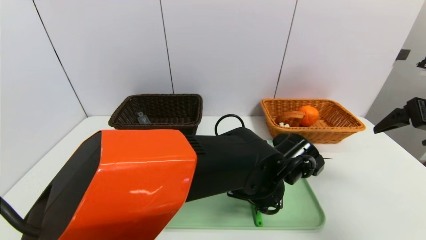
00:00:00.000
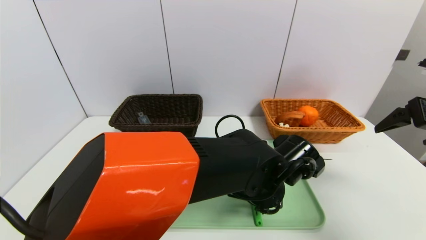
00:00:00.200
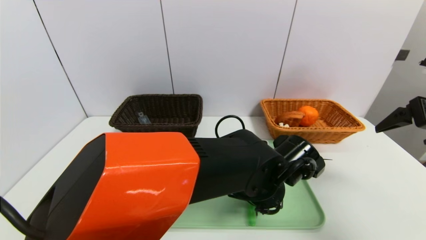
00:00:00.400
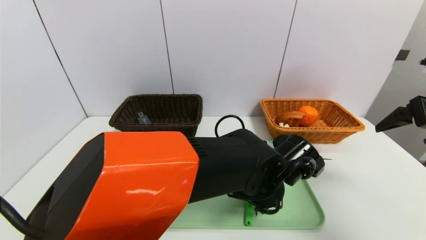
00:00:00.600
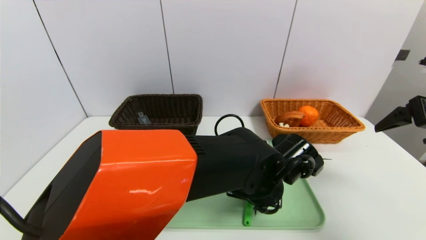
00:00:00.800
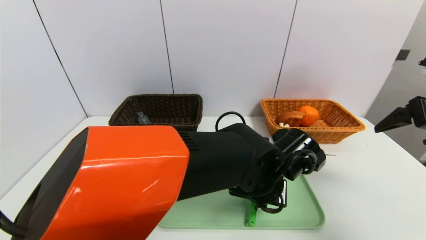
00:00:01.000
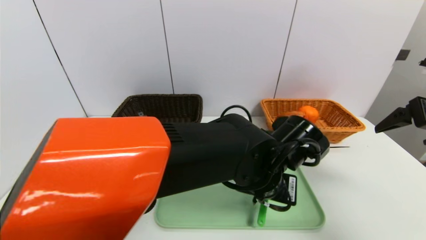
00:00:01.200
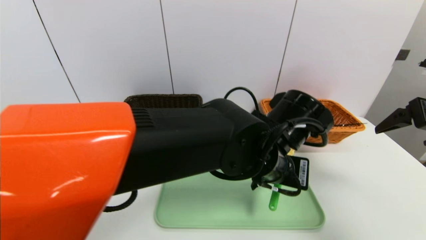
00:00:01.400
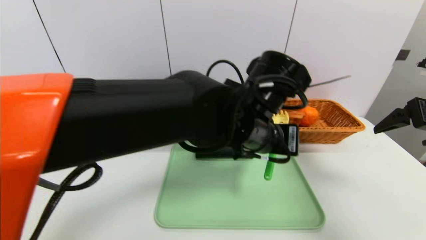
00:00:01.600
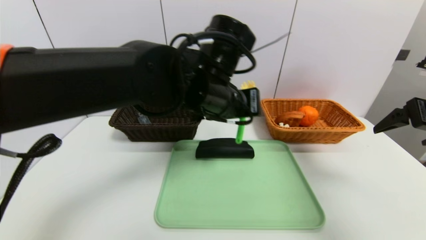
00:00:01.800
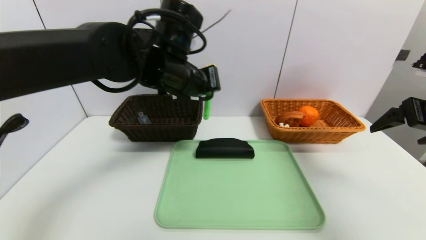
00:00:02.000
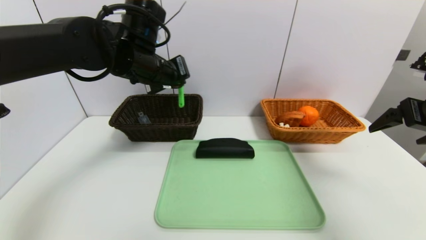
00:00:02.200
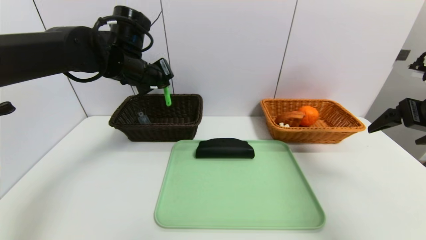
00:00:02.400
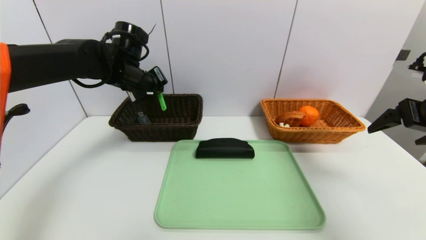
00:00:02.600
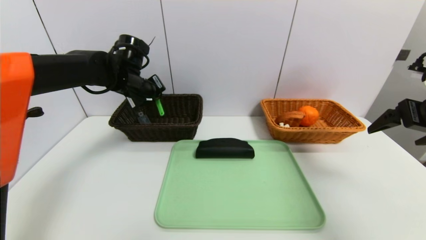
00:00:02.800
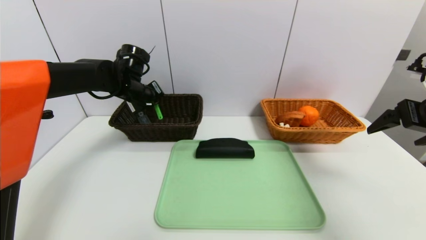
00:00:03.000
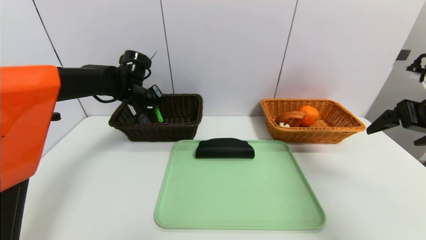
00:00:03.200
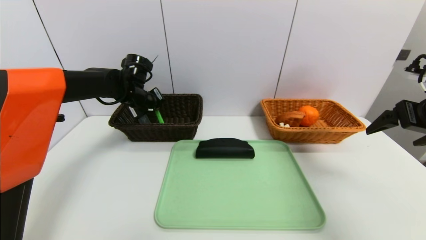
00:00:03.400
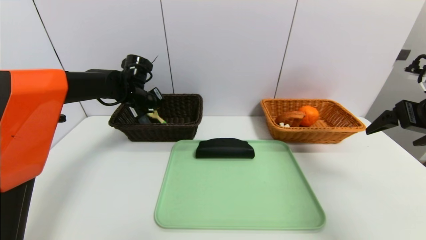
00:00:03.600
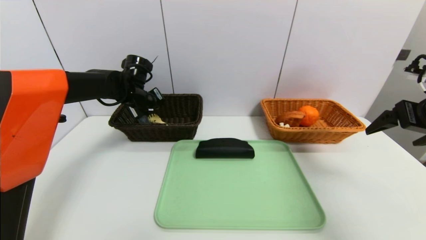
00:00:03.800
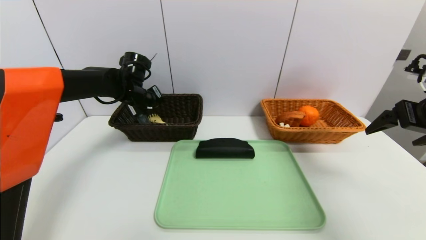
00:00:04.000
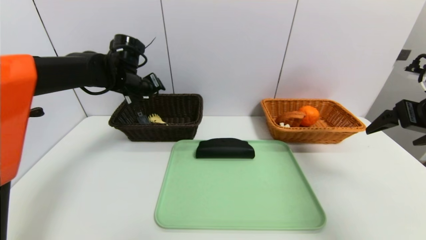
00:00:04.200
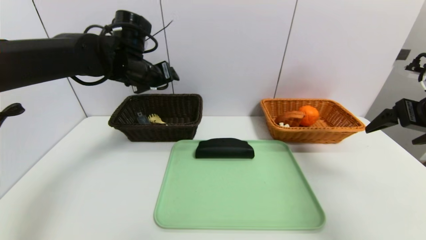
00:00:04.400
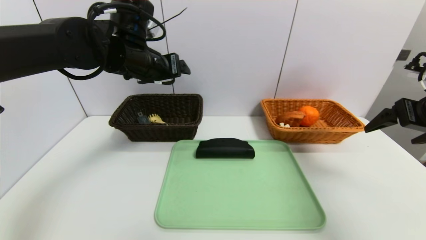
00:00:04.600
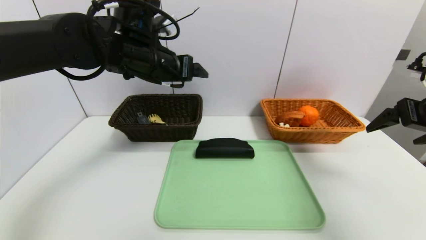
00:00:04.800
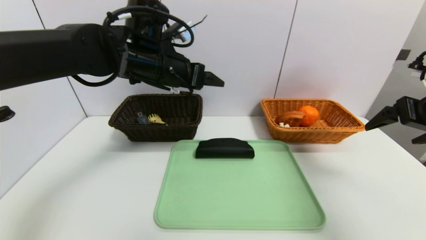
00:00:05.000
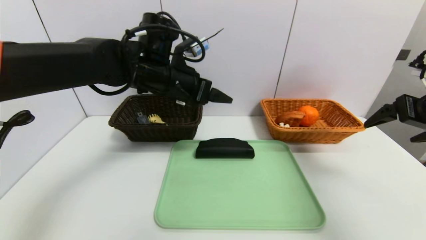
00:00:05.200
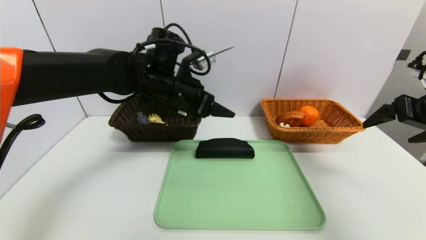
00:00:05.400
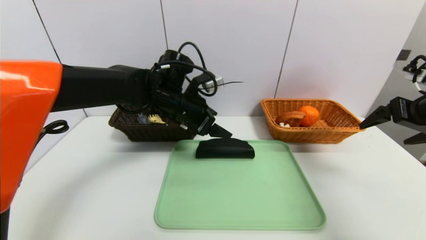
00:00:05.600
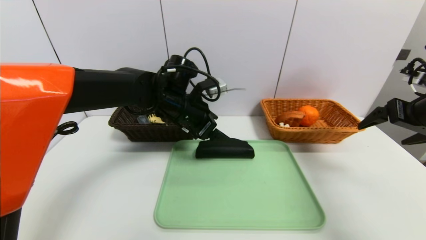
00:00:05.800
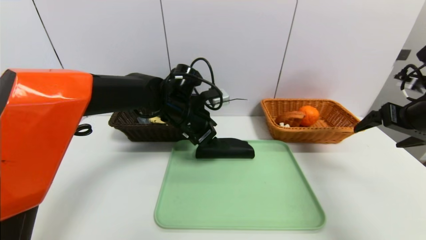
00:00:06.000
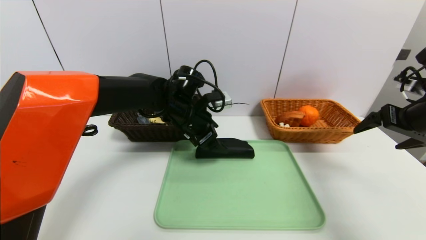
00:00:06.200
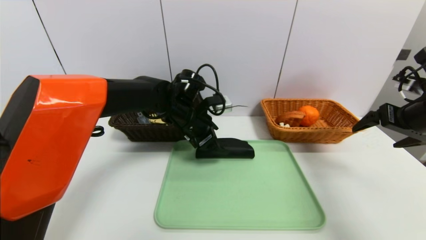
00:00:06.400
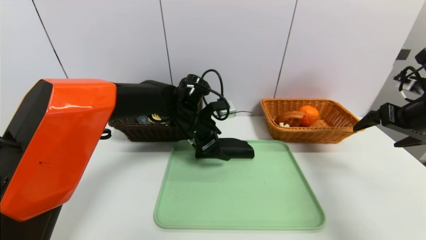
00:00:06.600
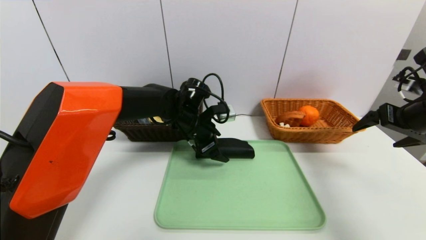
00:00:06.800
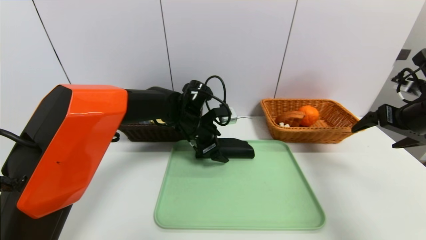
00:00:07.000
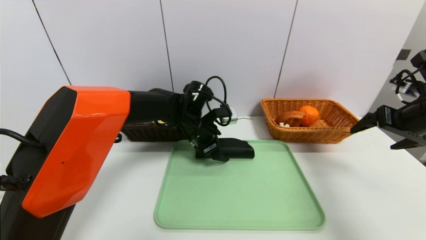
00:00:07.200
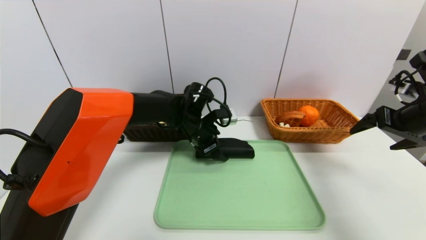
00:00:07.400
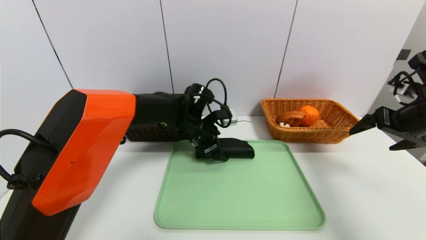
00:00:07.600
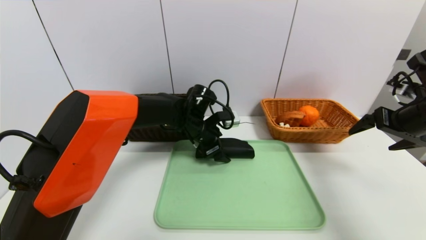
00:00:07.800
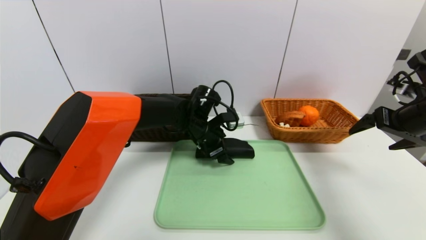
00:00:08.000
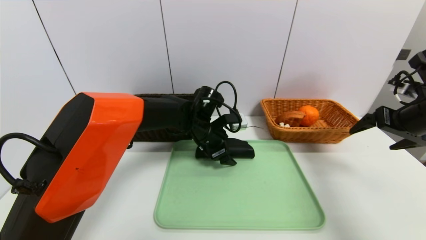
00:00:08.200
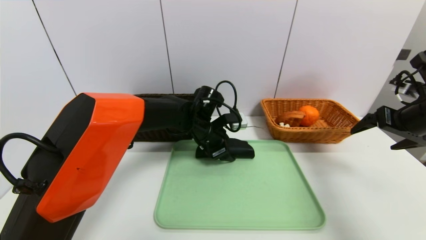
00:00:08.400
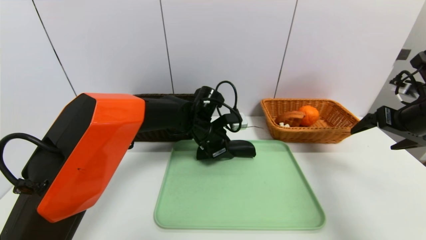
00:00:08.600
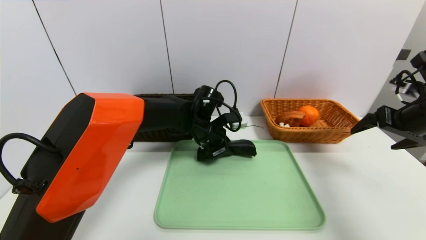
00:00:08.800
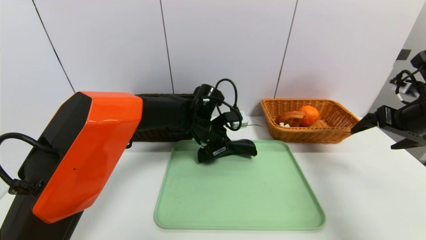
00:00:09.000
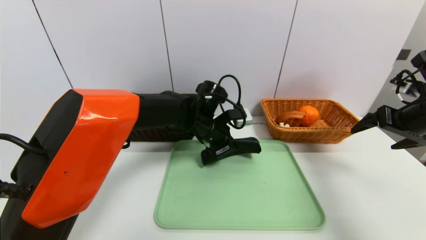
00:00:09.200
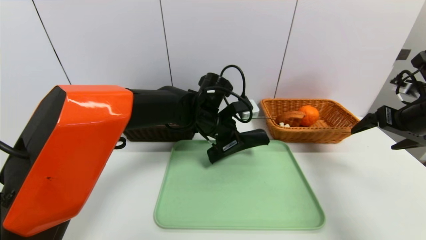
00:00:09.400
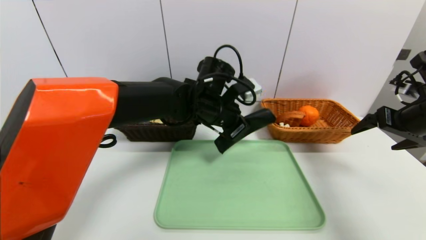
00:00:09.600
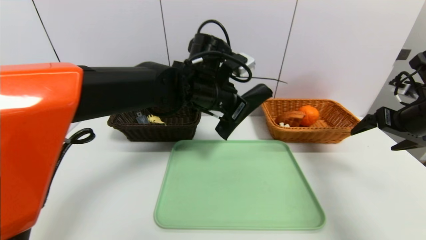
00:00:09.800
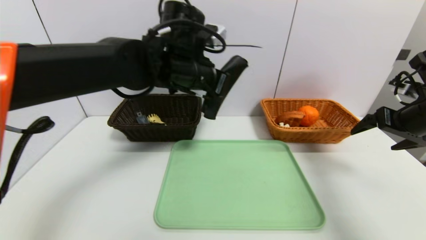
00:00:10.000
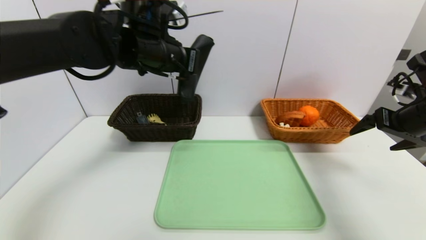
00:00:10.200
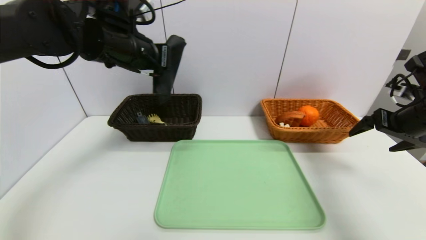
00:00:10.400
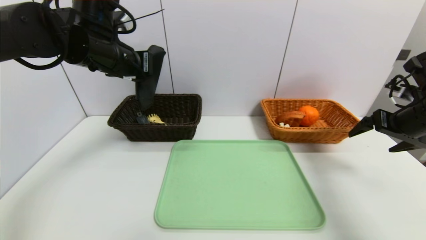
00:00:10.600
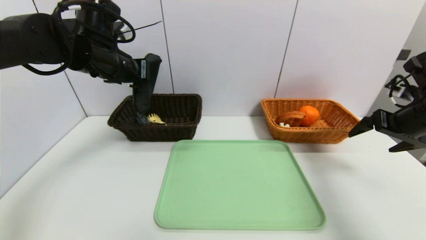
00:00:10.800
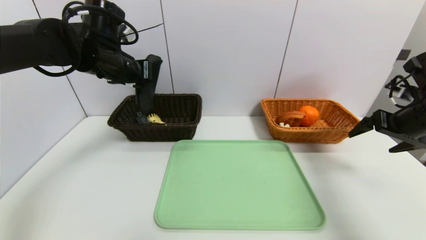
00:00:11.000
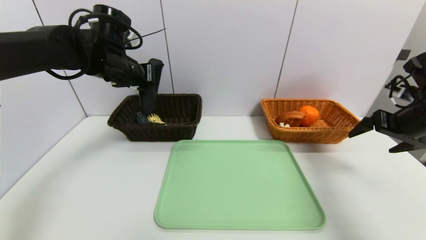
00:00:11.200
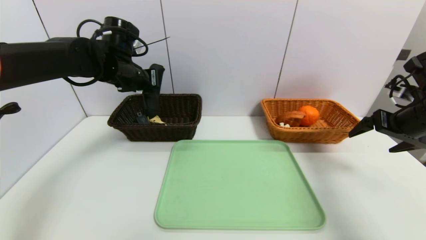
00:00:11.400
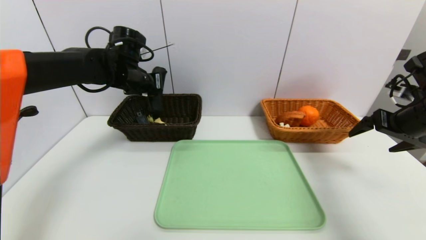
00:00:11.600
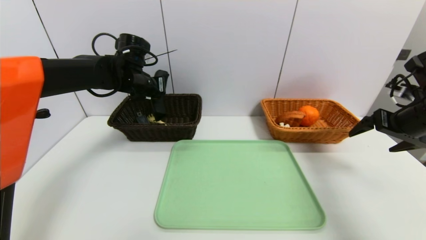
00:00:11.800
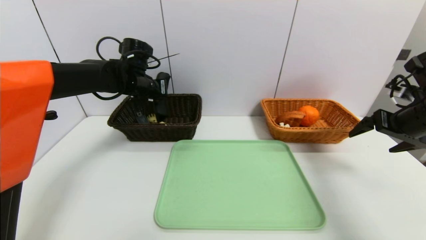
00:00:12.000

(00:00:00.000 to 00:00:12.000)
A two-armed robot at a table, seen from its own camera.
Task of the whole recording: place the food in the right basket with the right gripper, and place the non food items in the left basket with the left gripper.
Step, 00:00:00.000 - 00:00:04.000: Grasp the back scratcher and put it in the left basket.
00:00:00.000 - 00:00:01.600: The left gripper heads upward, covering roughly 10 cm, and closes up.
00:00:01.600 - 00:00:03.000: The left gripper is displaced to the left and forward by some 30 cm.
00:00:03.000 - 00:00:04.400: The left gripper moves upward, roughly 5 cm, and opens.
00:00:04.400 - 00:00:06.000: The left gripper moves to the right and downward, some 15 cm.
00:00:06.000 - 00:00:07.600: The left gripper goes some 5 cm downward.
00:00:07.600 - 00:00:09.000: The left gripper closes its fingers.
00:00:09.000 - 00:00:10.400: The left gripper moves upward and to the left, roughly 25 cm.
00:00:10.400 - 00:00:12.000: The left gripper goes about 15 cm forward and downward.

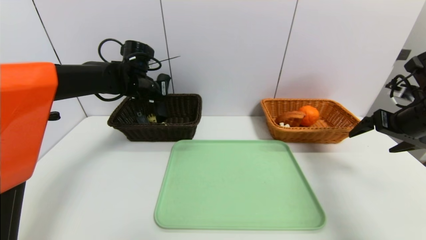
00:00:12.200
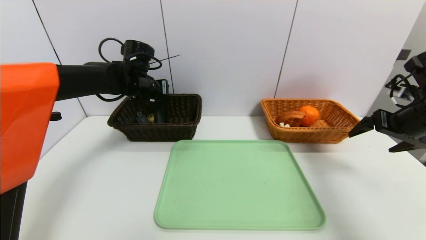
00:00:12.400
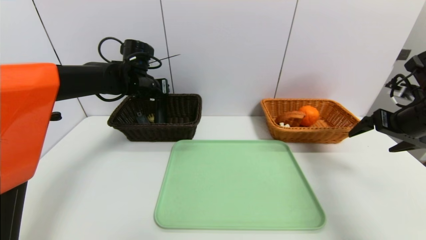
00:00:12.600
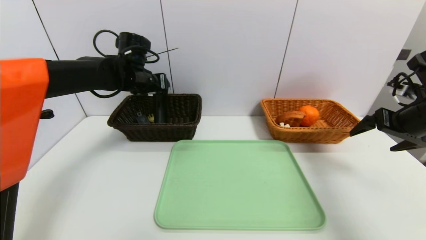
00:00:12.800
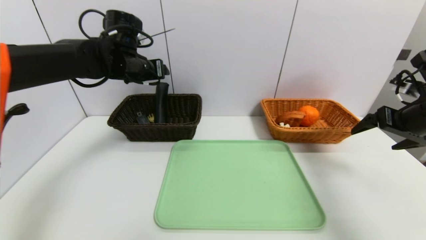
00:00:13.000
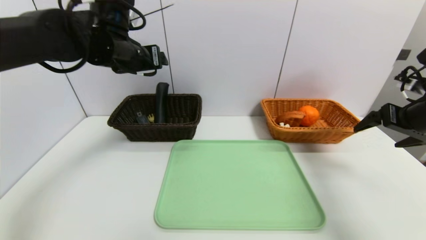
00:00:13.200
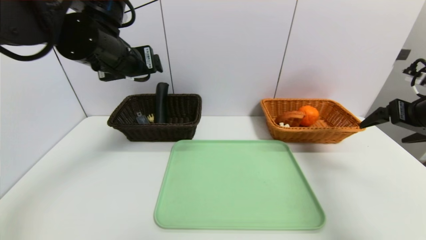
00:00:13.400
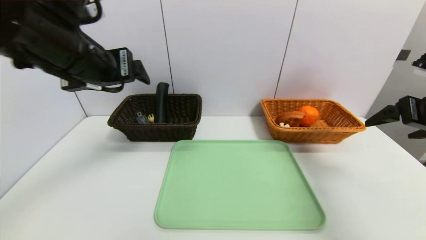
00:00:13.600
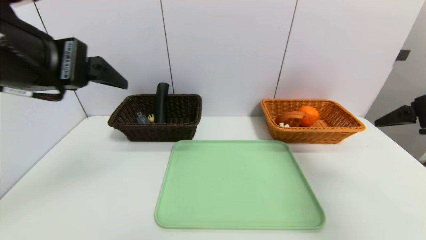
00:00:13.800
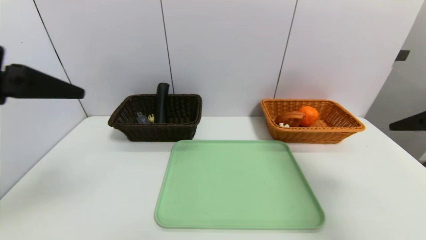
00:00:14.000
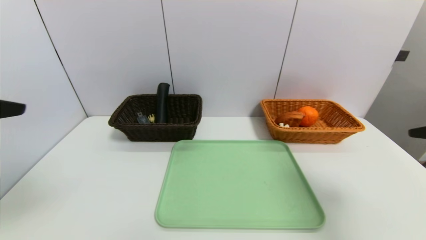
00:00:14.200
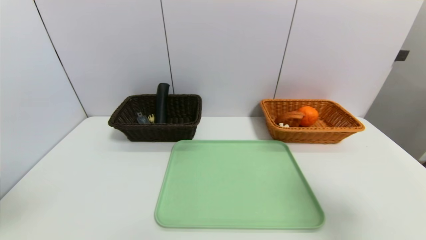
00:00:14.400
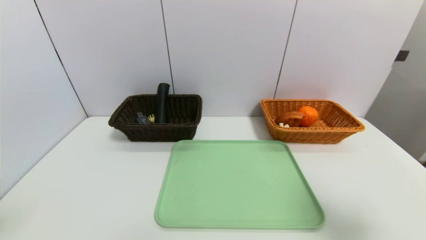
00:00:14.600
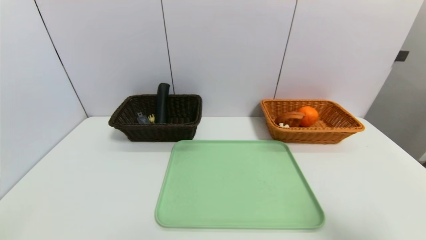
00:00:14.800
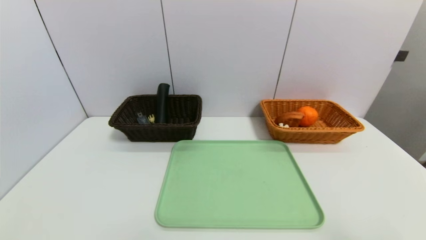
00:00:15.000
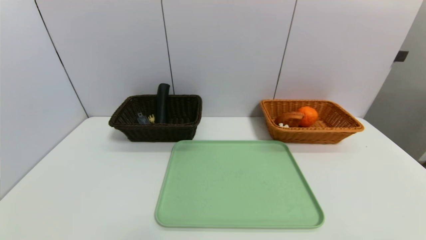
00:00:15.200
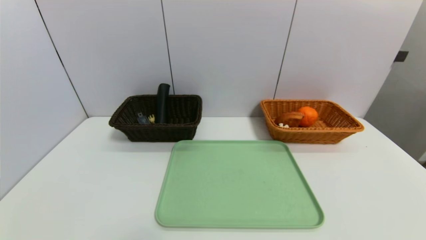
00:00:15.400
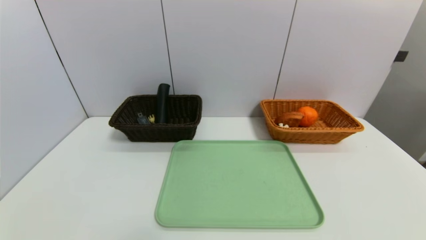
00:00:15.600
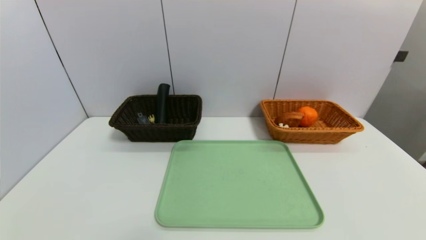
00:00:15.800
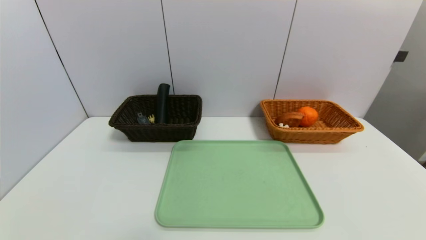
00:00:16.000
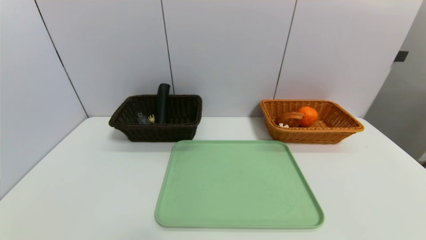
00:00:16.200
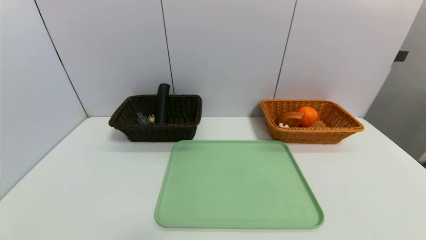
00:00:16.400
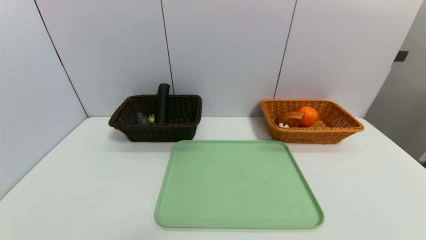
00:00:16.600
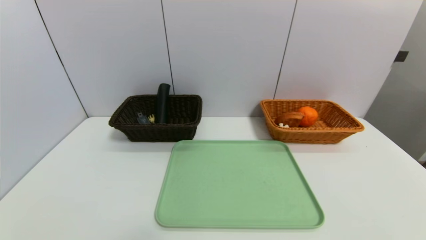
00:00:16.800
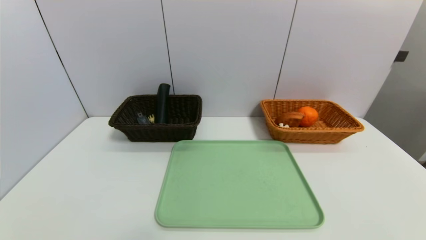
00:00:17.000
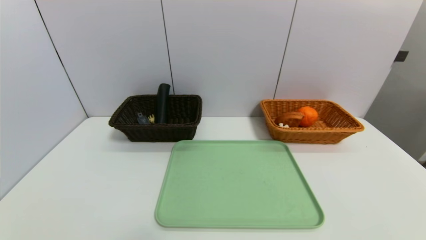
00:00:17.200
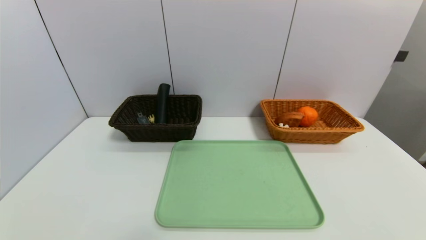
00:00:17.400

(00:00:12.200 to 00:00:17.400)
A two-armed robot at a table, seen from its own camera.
Task of the whole recording: place the food in the right basket with the right gripper, and place the non food items in the left basket with the left gripper.
00:00:12.200 - 00:00:14.000: The left gripper shifts about 35 cm backward and upward, and opens. The right gripper shifts roughly 15 cm backward and upward.
00:00:14.000 - 00:00:15.600: The right gripper moves backward and downward, some 25 cm; the left gripper goes about 30 cm downward and backward.
